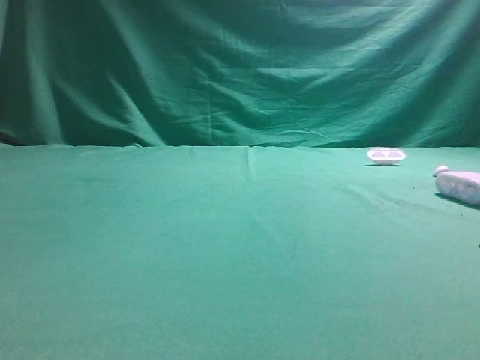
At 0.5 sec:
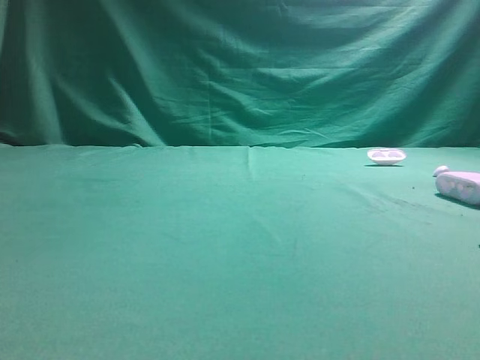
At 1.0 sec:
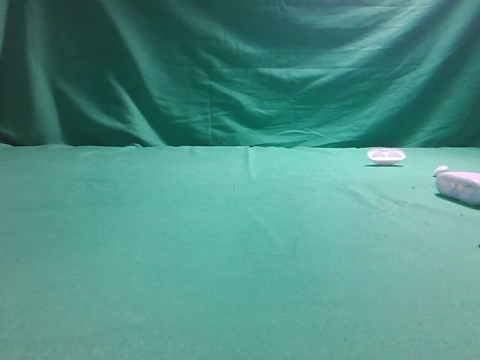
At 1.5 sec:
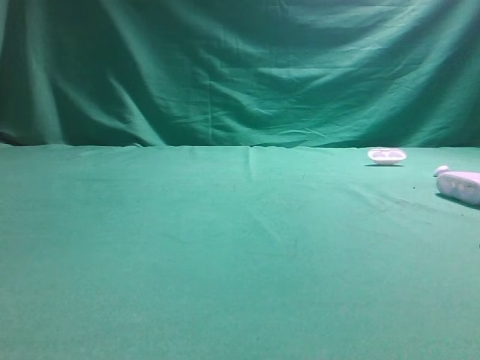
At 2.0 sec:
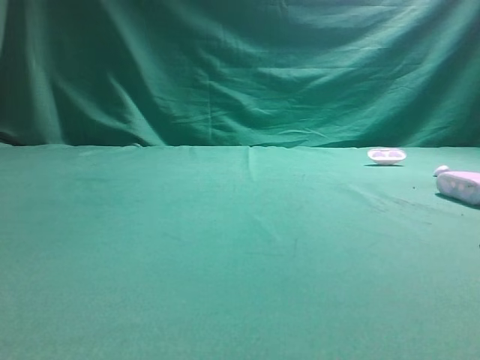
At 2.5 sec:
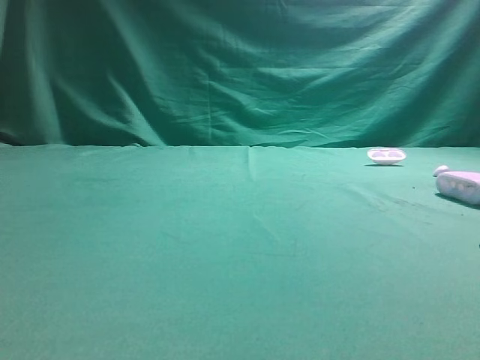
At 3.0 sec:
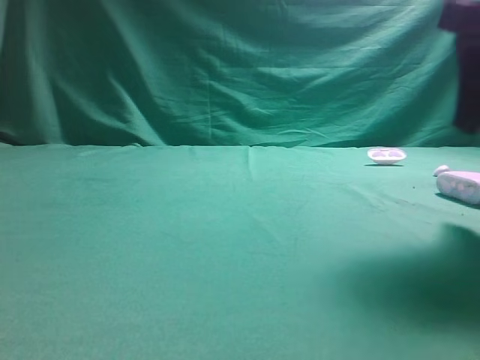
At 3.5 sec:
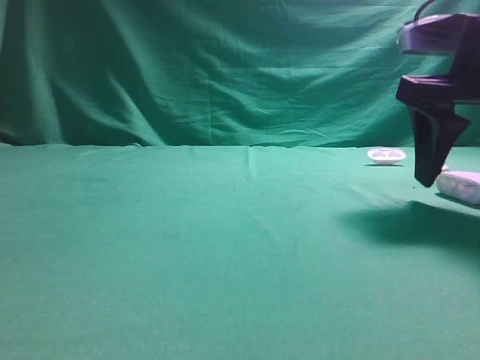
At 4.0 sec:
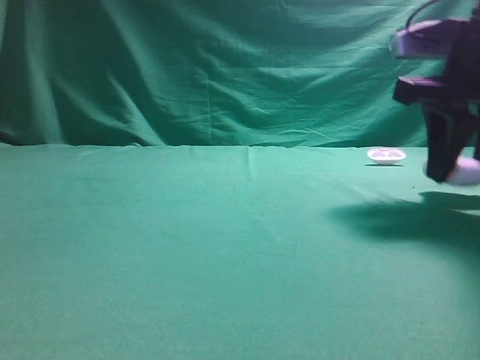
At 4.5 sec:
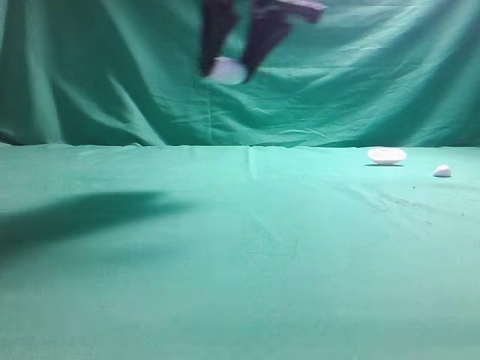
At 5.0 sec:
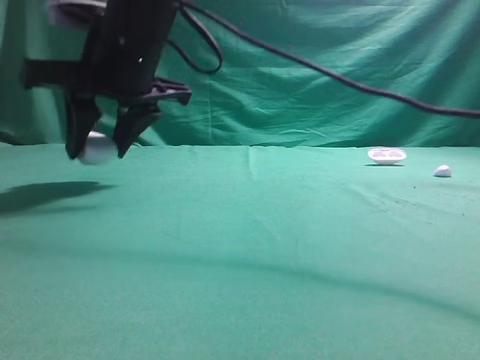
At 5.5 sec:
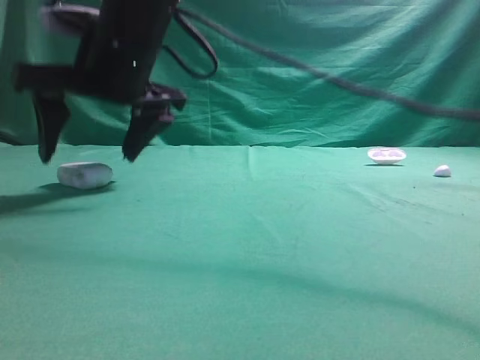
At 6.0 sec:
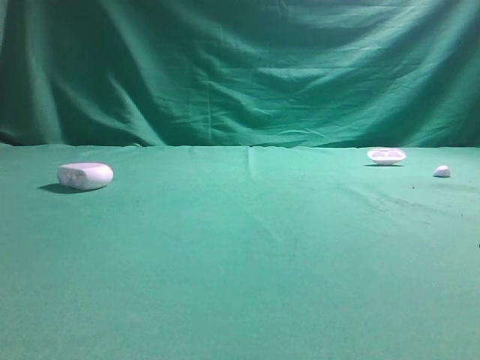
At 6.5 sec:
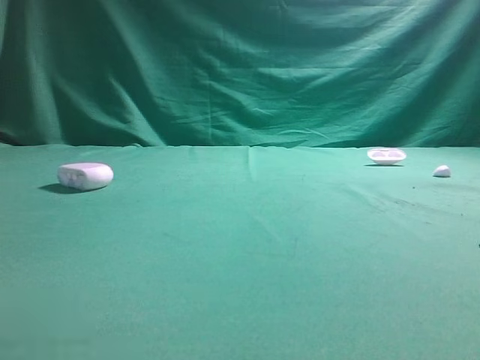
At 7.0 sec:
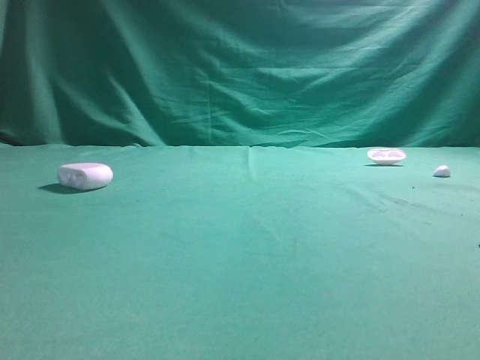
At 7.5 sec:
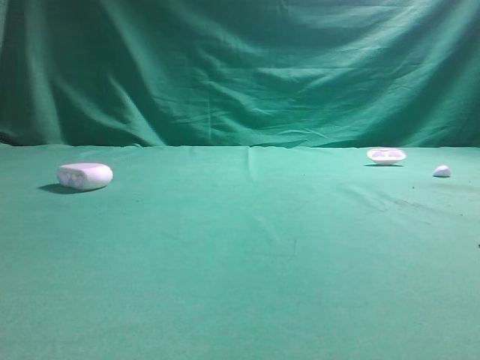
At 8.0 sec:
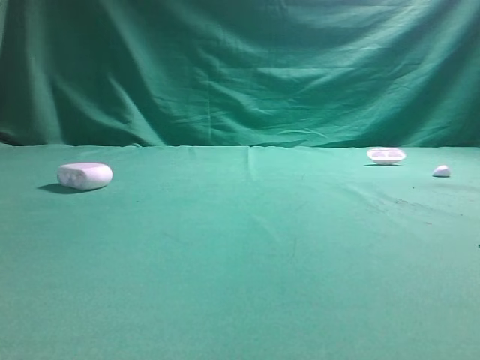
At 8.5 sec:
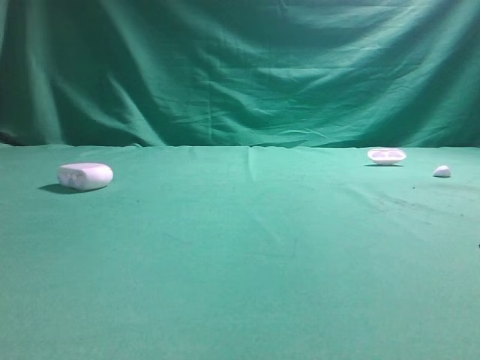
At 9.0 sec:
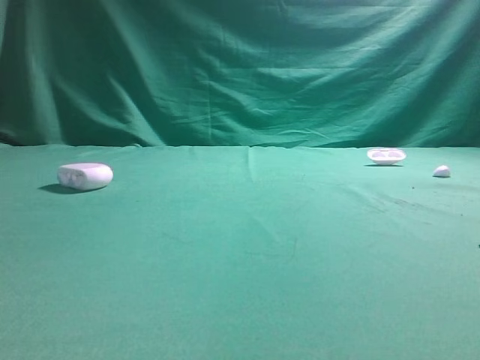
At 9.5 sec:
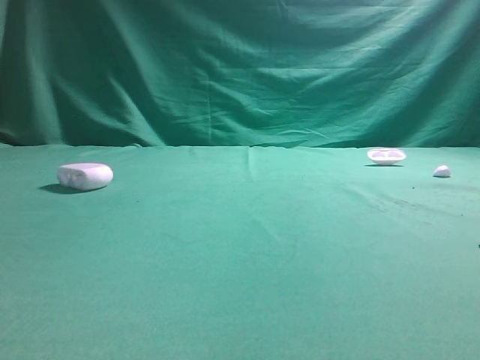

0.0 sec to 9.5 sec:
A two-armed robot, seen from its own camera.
Step, 0.0 sec to 3.0 sec: Grasp the Bluetooth earphone case.
Step, 3.5 sec to 5.5 sec: Place bluetooth earphone case on the left side of the table.
